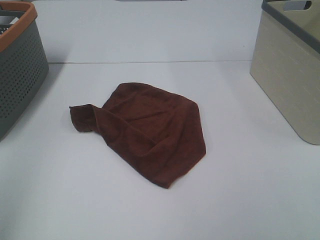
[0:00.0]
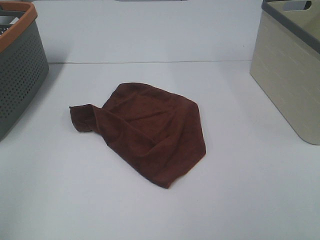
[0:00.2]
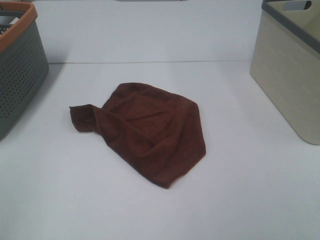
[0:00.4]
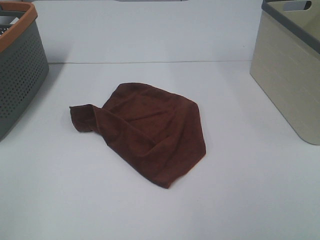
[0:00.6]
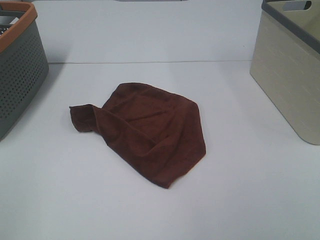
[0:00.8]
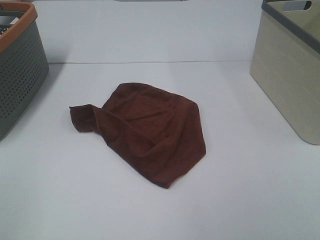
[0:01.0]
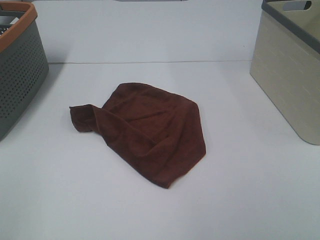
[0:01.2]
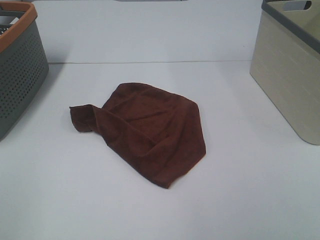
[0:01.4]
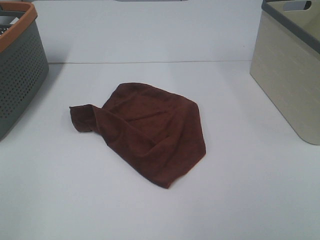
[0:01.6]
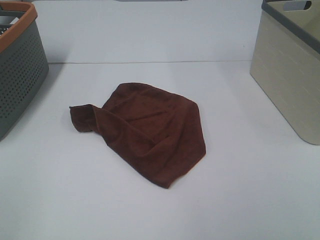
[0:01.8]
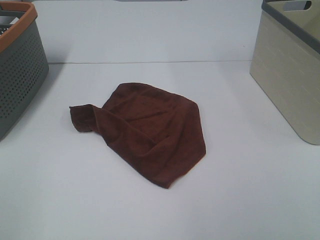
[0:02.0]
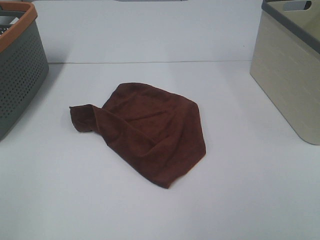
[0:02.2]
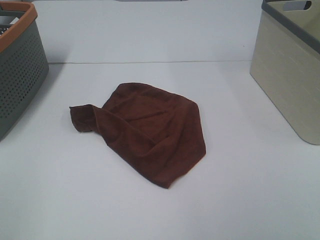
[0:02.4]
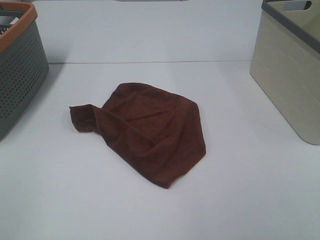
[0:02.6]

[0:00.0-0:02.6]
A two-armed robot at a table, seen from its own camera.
Task of the whole recording: Remove the towel and place it.
0:01.2 to 0:02.6: The two grippers keep their place.

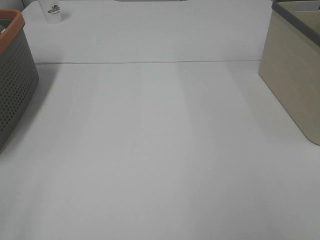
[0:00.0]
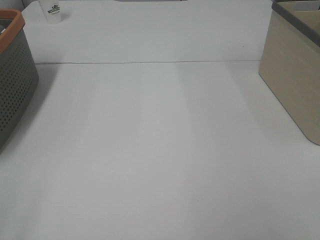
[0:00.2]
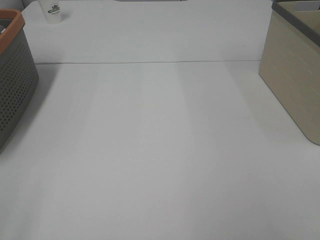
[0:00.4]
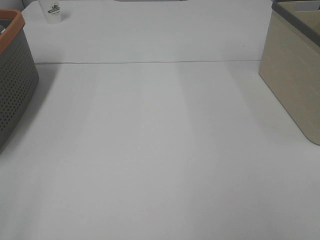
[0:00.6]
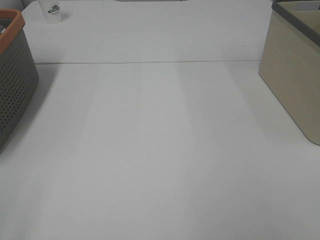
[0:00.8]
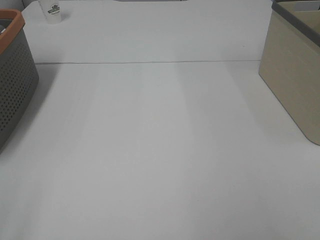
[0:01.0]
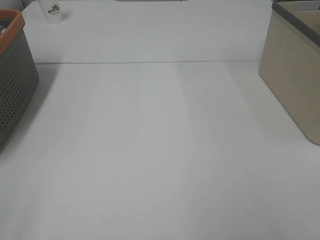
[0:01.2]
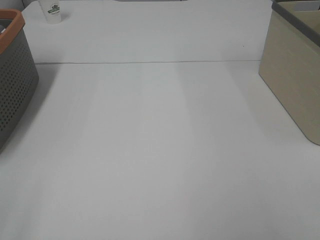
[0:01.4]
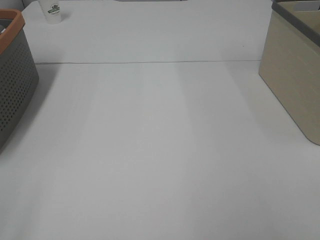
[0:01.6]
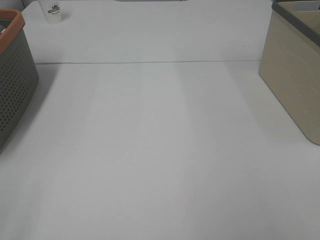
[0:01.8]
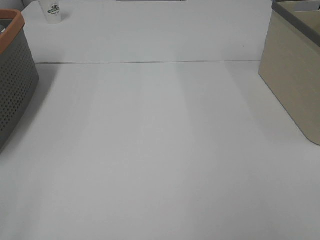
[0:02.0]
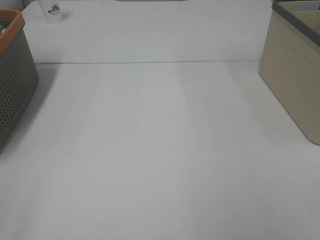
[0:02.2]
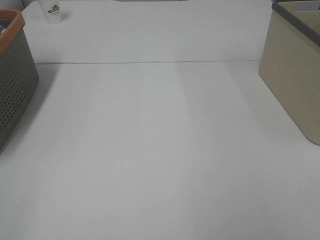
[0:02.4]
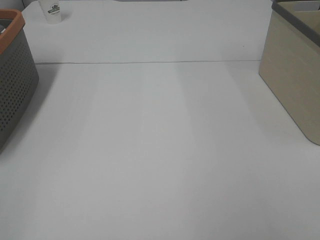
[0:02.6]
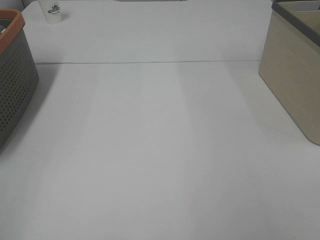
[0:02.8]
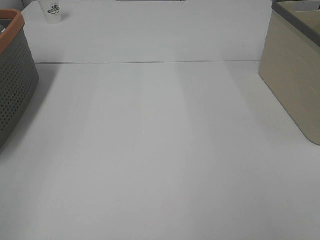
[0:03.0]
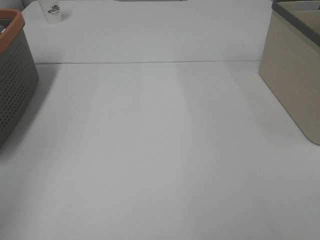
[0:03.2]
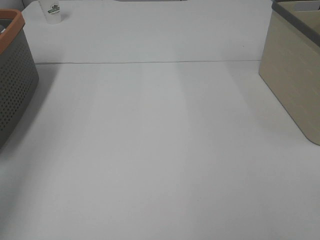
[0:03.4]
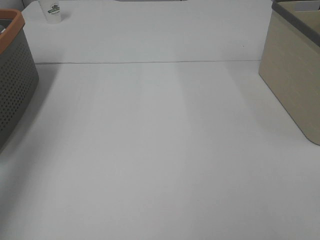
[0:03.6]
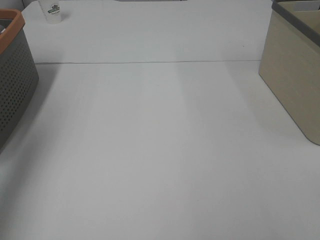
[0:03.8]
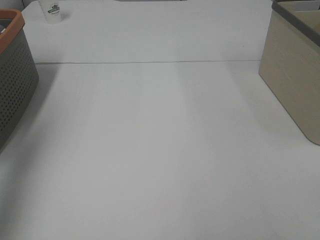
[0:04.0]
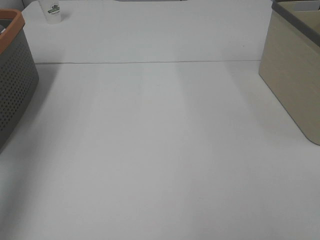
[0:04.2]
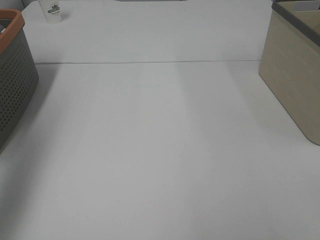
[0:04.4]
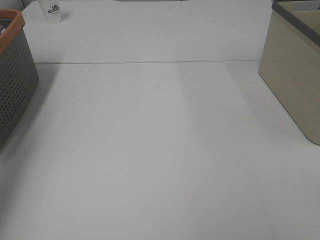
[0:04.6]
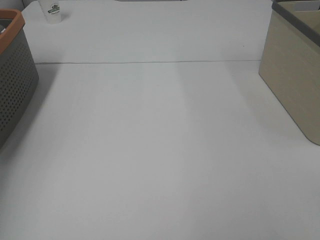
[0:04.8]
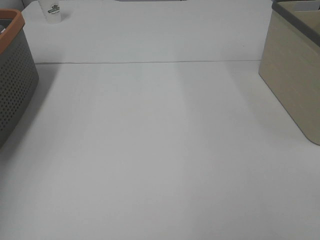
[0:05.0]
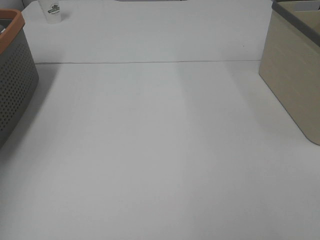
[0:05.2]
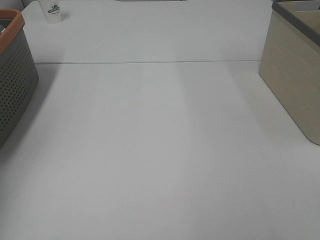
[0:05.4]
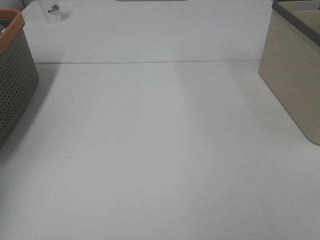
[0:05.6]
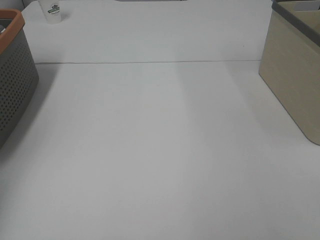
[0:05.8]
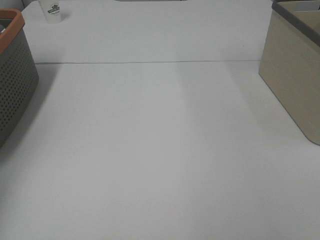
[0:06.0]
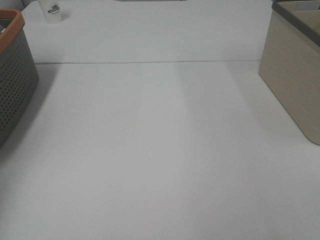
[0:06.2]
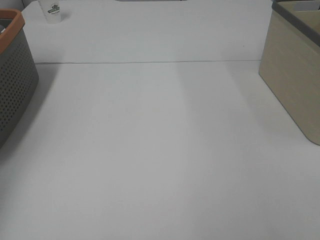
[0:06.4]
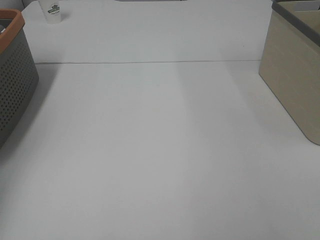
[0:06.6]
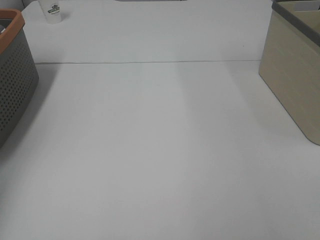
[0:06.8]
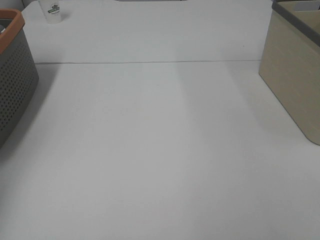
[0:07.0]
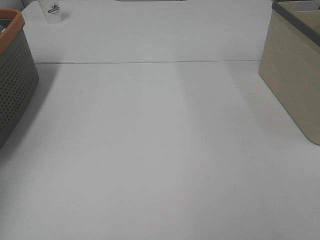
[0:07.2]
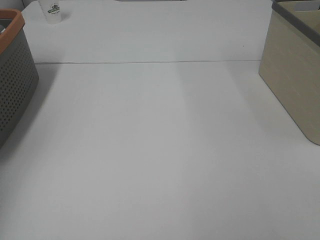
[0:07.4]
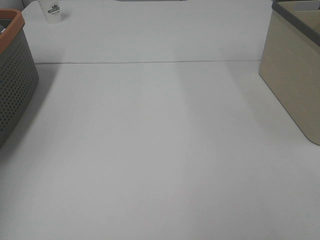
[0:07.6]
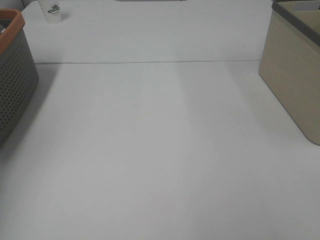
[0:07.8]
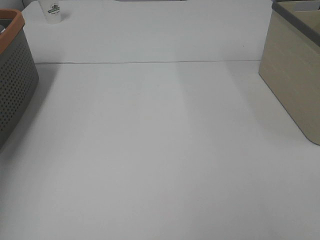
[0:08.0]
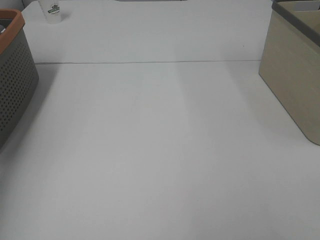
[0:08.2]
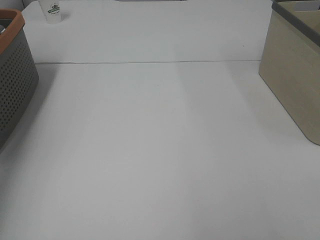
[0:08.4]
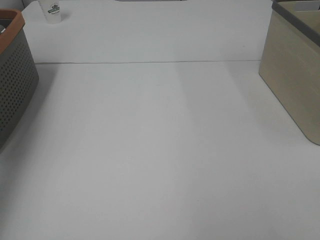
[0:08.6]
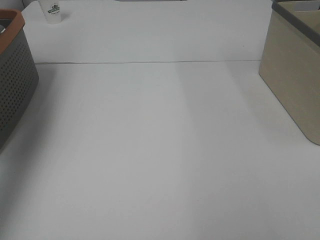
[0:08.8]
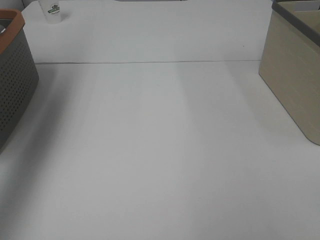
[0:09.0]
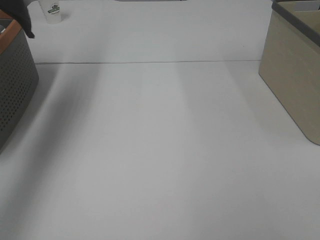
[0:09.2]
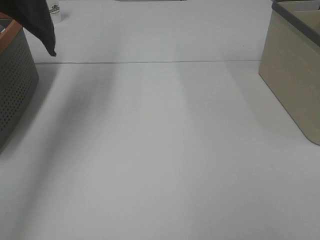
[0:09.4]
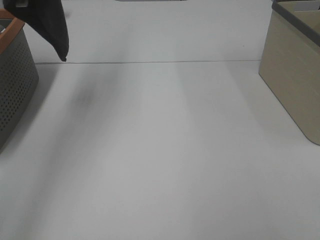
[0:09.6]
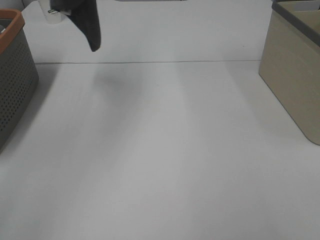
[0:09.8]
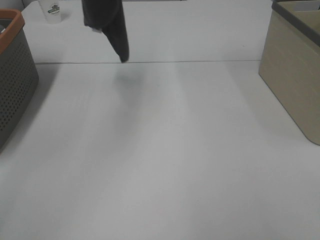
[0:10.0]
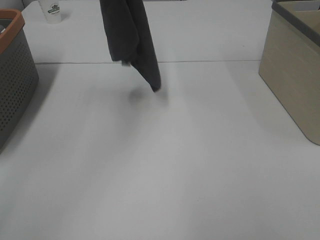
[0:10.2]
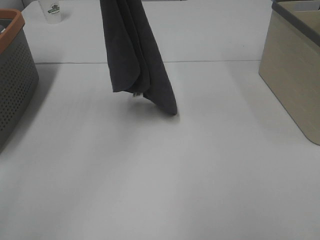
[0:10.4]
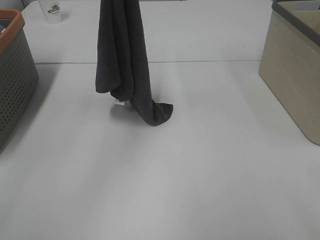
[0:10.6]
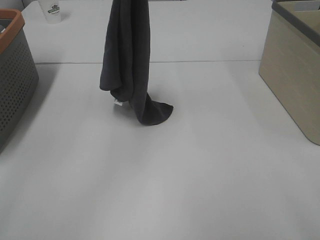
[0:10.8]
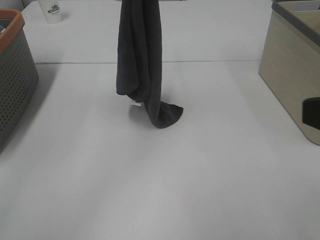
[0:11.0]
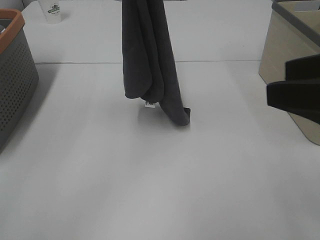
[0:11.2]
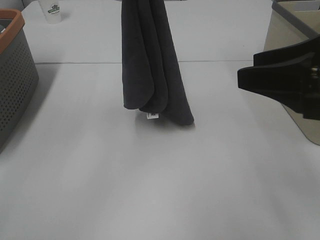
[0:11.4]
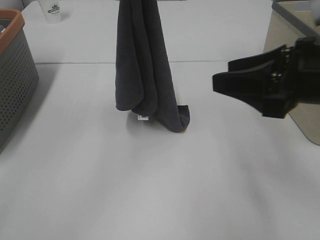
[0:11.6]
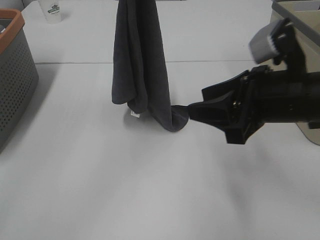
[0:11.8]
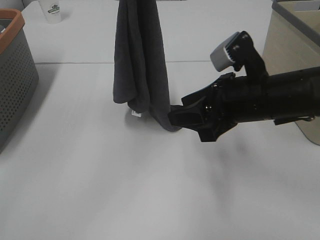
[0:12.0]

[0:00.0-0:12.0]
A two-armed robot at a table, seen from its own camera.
Task of the whole recording: Remove the towel and place it.
0:00.0 to 0:01.6: Both grippers stay put.
0:03.0 to 0:04.4: The left gripper is displaced forward by roughly 25 cm.
0:04.4 to 0:06.0: The left gripper is displaced forward, downward and to the left by about 20 cm.
0:07.6 to 0:09.0: The left gripper goes approximately 25 cm upward.
0:09.0 to 0:10.4: The left gripper moves to the right and downward, approximately 25 cm.
0:10.4 to 0:12.0: The left gripper ends up some 5 cm from where it was. The right gripper heads forward, downward and to the left, covering some 30 cm.

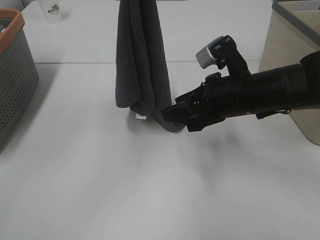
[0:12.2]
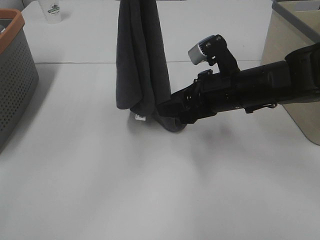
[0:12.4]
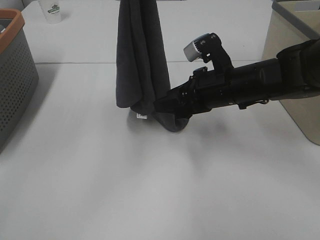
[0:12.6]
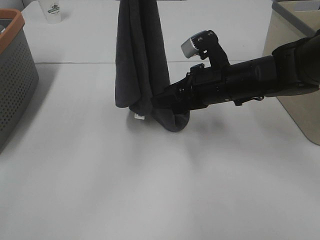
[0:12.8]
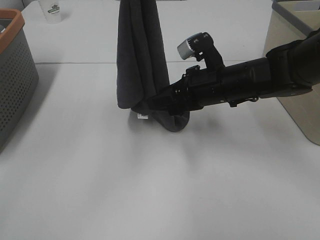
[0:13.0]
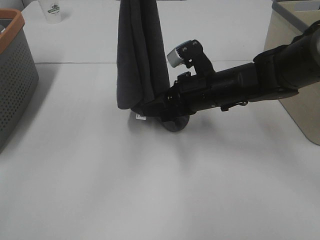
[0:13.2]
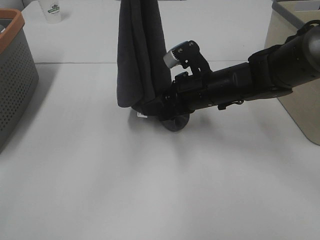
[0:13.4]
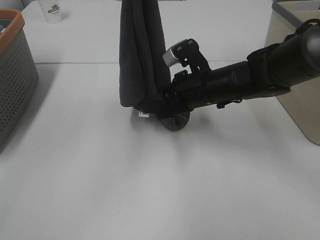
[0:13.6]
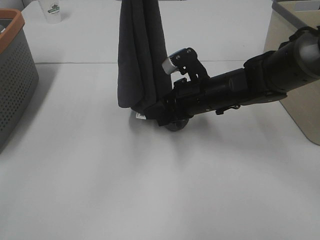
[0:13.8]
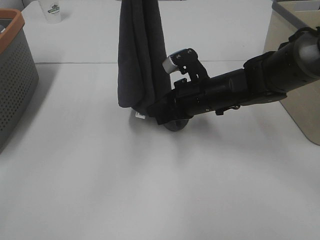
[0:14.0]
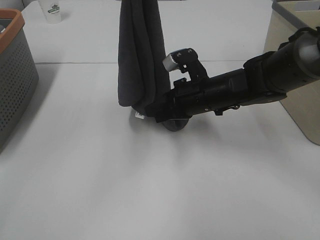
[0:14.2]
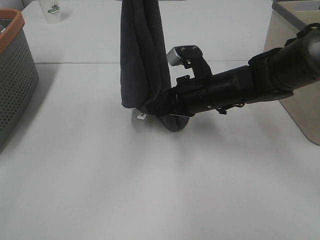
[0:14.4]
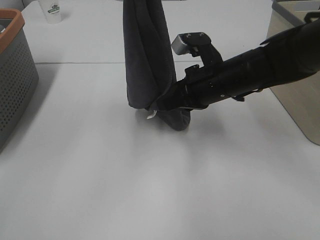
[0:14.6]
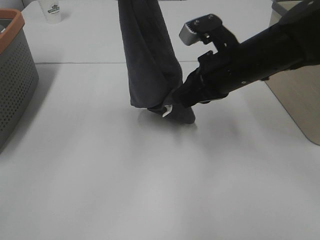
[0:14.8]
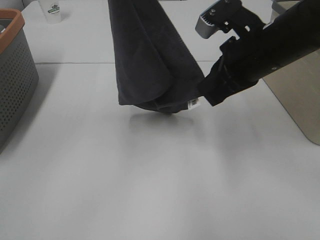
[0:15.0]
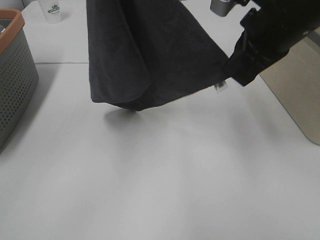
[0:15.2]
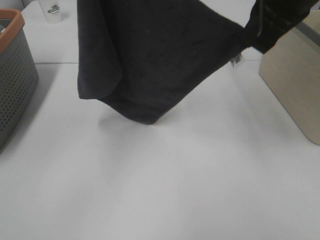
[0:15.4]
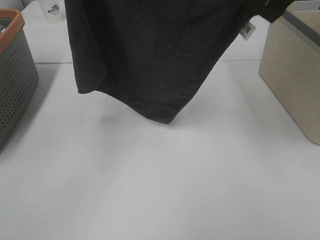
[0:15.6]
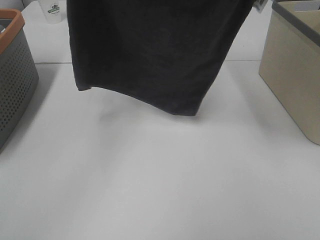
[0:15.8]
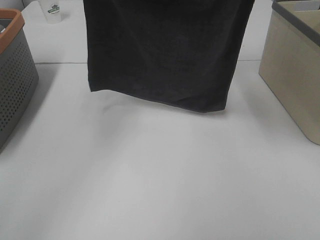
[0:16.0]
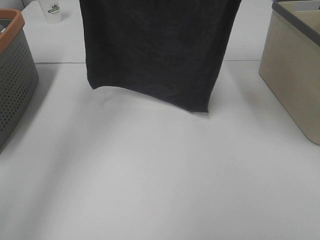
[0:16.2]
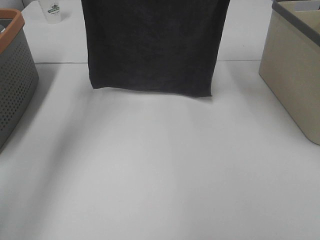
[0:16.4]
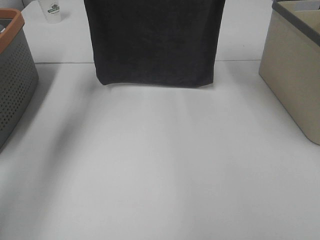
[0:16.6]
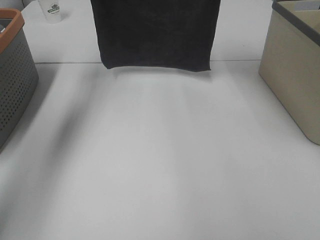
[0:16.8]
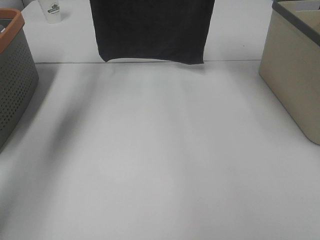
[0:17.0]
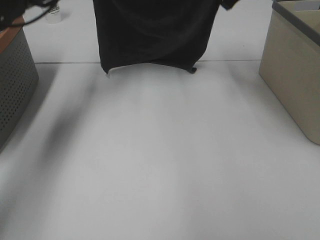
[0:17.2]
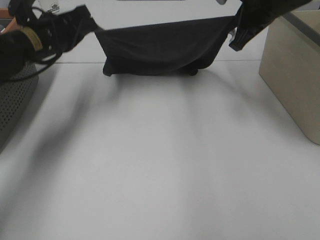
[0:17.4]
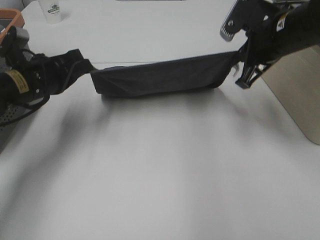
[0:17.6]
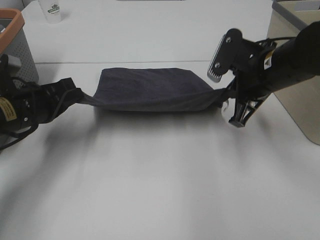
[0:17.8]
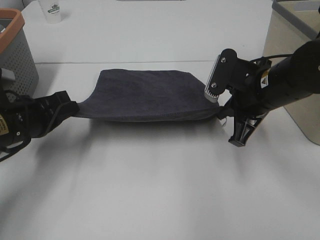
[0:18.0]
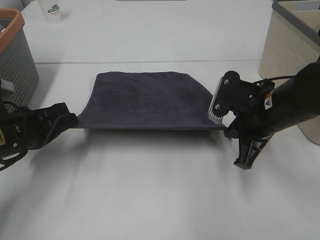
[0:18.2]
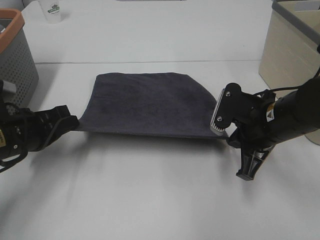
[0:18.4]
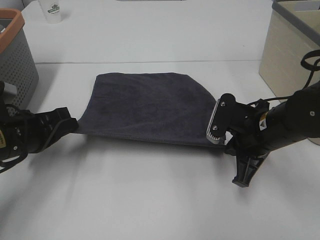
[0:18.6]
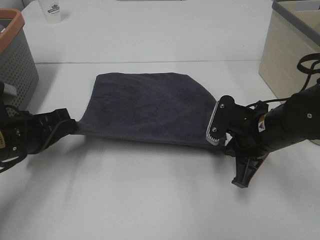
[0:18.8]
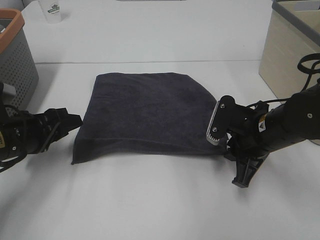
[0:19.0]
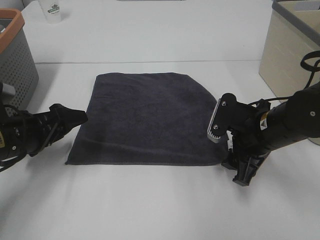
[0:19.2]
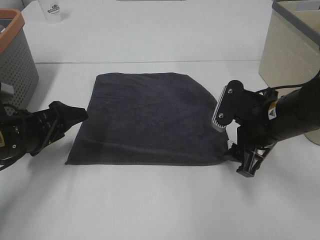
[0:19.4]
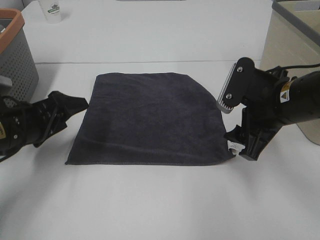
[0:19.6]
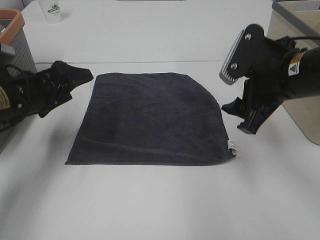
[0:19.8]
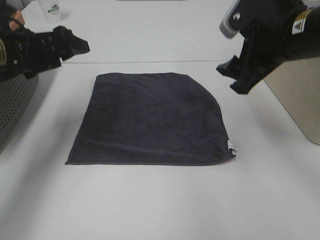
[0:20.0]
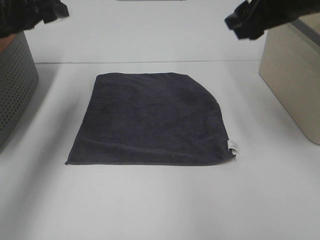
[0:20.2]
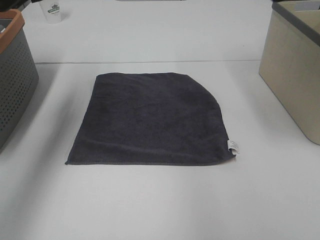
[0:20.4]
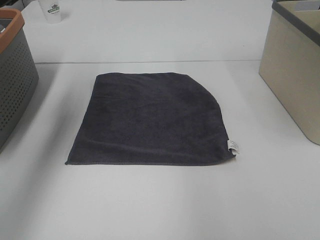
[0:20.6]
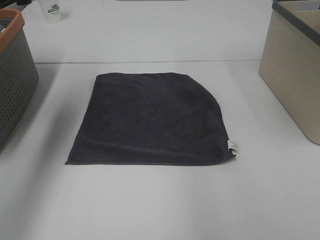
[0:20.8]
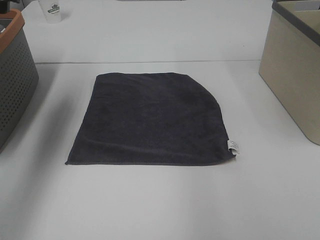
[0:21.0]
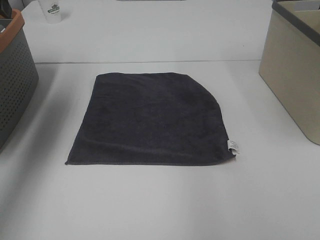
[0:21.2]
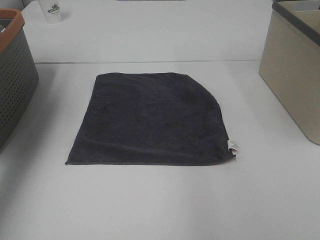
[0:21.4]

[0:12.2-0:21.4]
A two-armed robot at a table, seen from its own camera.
Task of the whole recording: Remove the towel and place it.
Step, 0:13.2 to 0:15.2: Left hand: spread the grey towel flat on the table.
Step, 0:13.2 to 0:15.2: Right hand: spread the grey towel flat on the table.
0:12.2 to 0:13.8: The right gripper goes approximately 5 cm forward.
0:13.8 to 0:15.2: The right gripper moves upward, roughly 20 cm, and closes up; the left gripper changes place by some 5 cm.
0:15.2 to 0:16.8: The left gripper shifts roughly 20 cm forward and downward, while the right gripper shifts approximately 20 cm forward and upward.
0:16.8 to 0:18.4: The left gripper heads backward and downward, covering some 30 cm; the right gripper travels downward and backward by some 30 cm.
0:18.4 to 0:19.8: The left gripper changes place by roughly 5 cm, and opens up. The right gripper is displaced upward by roughly 10 cm, and opens its fingers.
0:19.8 to 0:21.4: The right gripper travels upward, forward and to the right by some 20 cm, while the left gripper heads upward, to the left and forward, covering about 25 cm.
